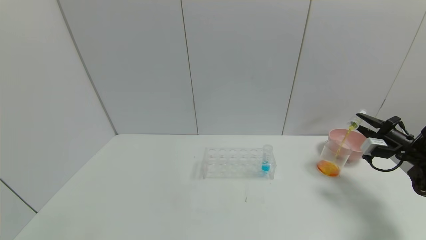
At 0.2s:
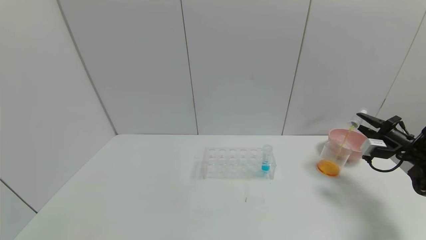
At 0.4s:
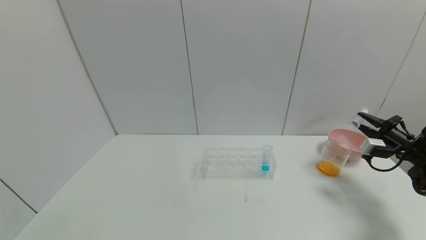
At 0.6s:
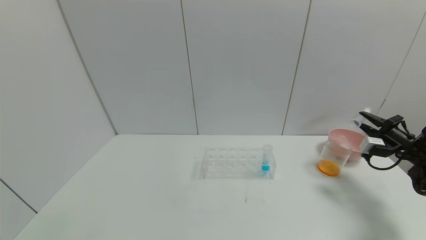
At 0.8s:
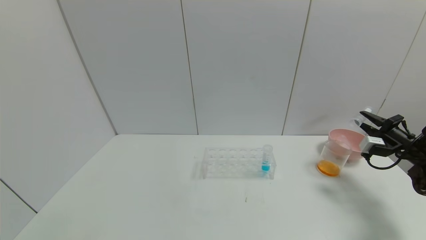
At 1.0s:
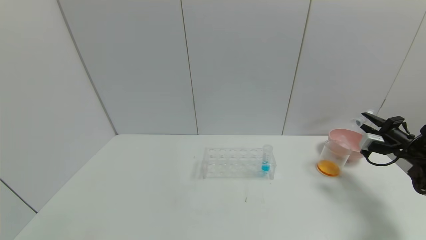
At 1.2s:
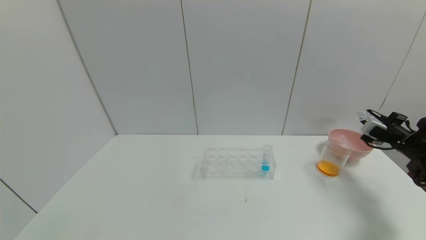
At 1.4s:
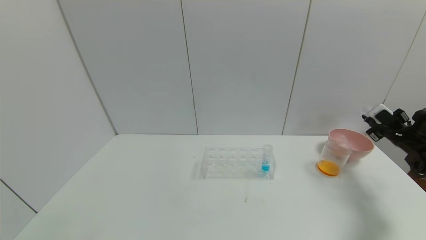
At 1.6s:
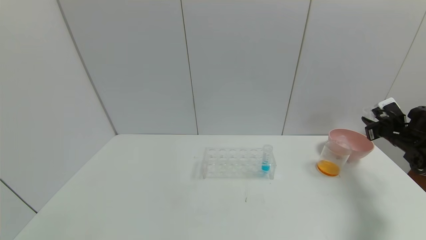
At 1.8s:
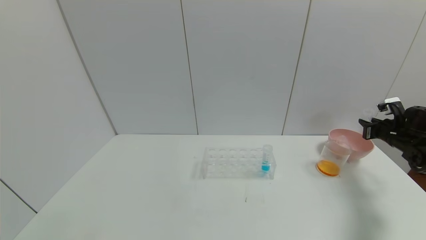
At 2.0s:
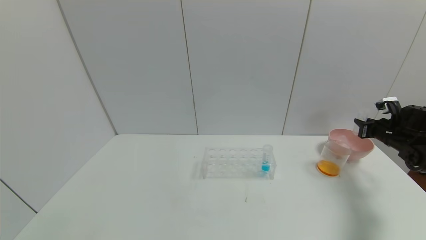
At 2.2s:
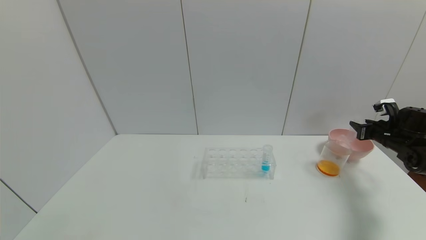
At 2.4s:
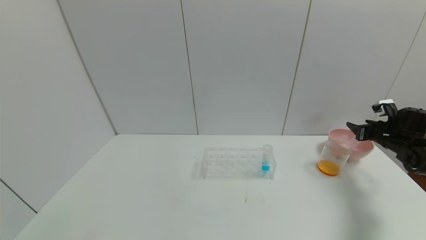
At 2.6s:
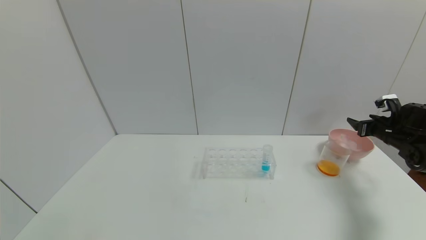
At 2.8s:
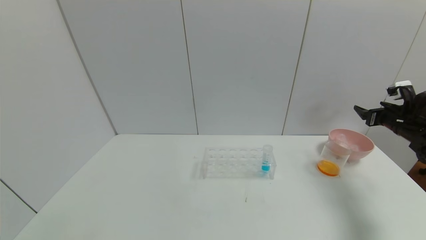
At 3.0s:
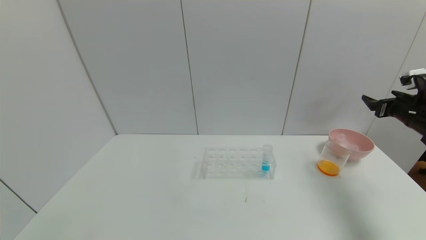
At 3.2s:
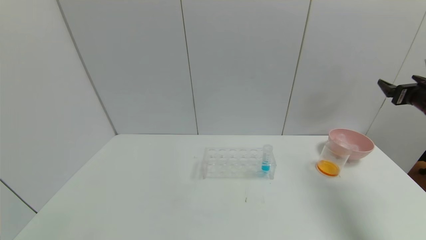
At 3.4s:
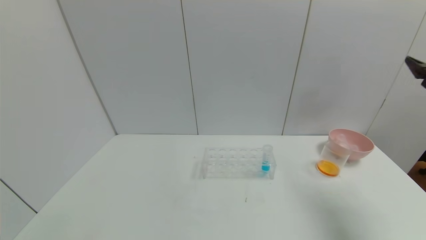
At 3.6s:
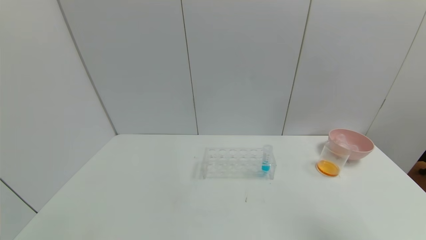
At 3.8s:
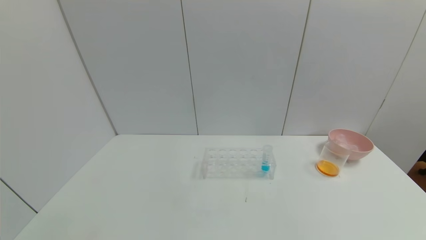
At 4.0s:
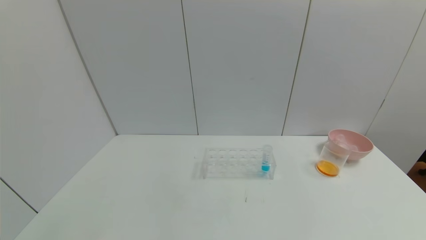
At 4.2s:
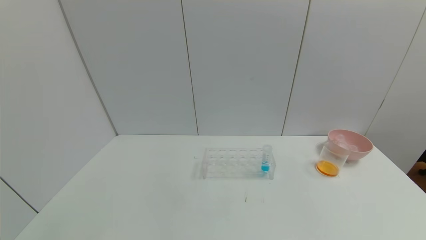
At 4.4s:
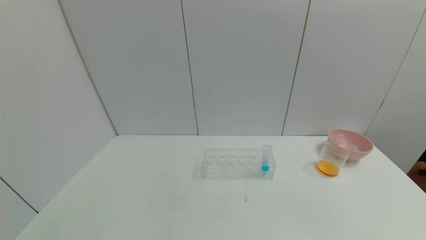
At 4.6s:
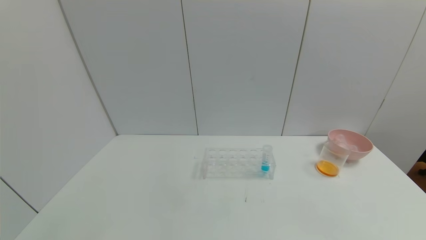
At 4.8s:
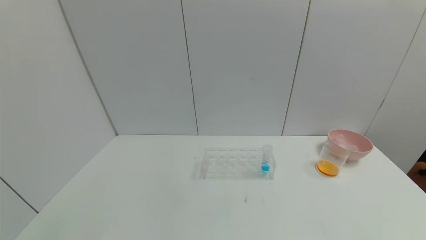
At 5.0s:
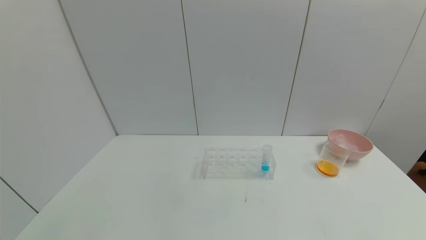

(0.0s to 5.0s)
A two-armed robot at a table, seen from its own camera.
Task of the whole recording: pick up the test tube with yellow pigment and the test tube with red pigment by grippers and pour them into the beaker.
Step, 0.8s - 2.8s: Place the test tube into the bowl with right gripper.
1.6s - 3.4s: The right gripper shifts about 20 cm upward and backward, and opens.
3.4s - 5.0s: The right gripper moves backward and downward, about 40 cm.

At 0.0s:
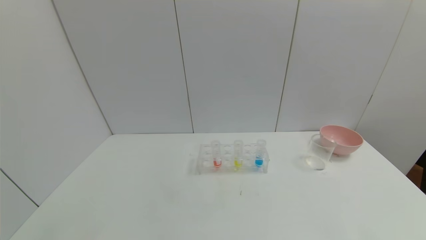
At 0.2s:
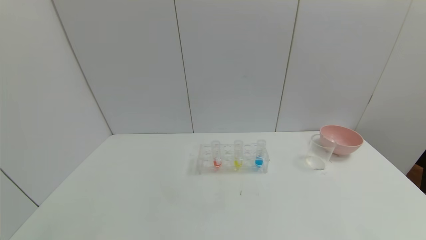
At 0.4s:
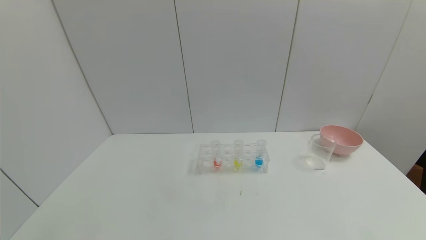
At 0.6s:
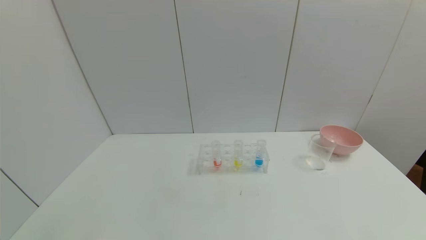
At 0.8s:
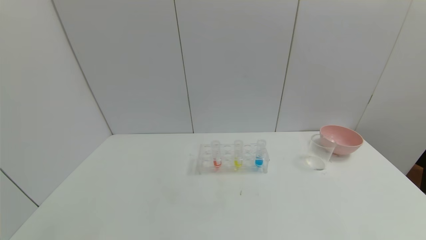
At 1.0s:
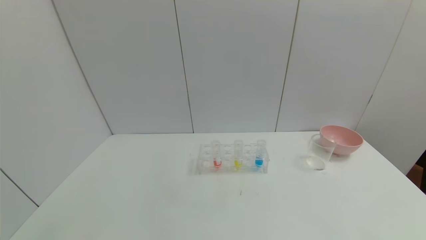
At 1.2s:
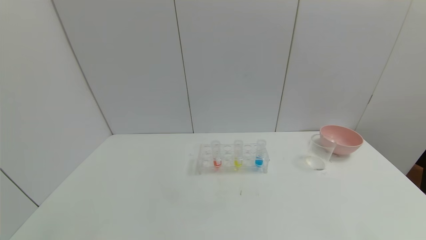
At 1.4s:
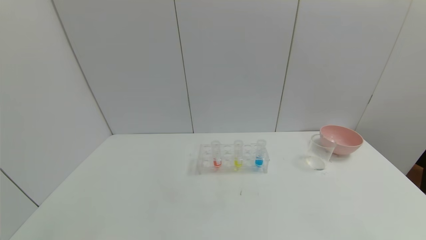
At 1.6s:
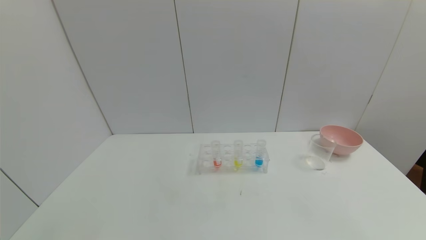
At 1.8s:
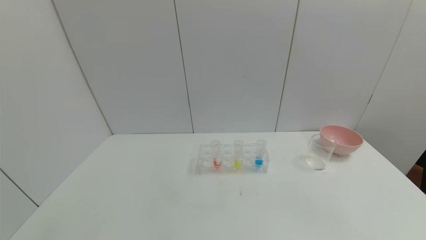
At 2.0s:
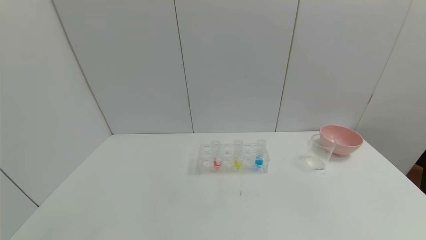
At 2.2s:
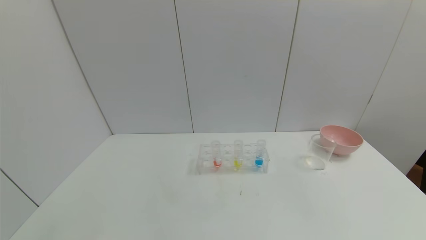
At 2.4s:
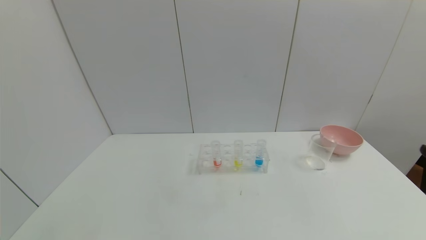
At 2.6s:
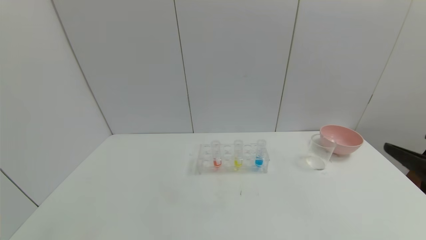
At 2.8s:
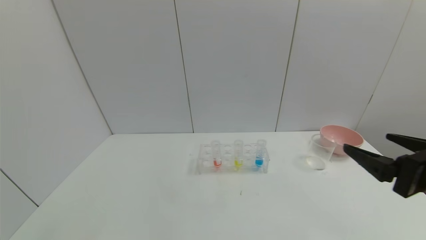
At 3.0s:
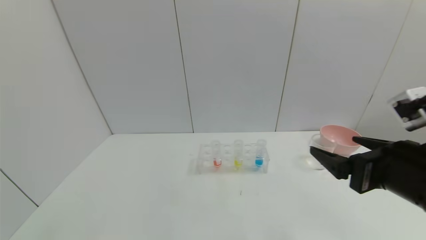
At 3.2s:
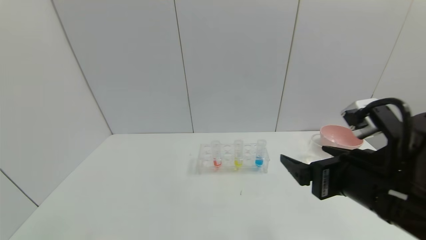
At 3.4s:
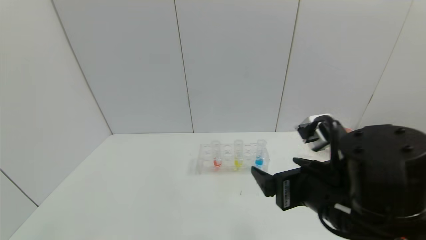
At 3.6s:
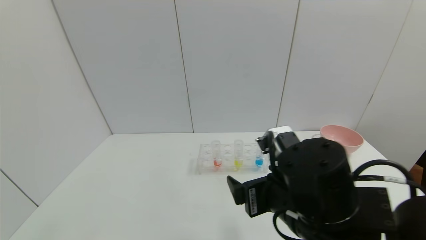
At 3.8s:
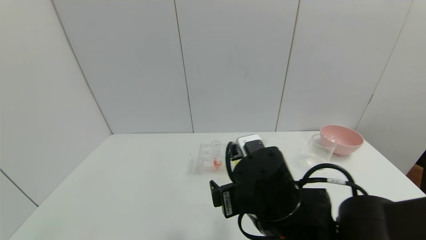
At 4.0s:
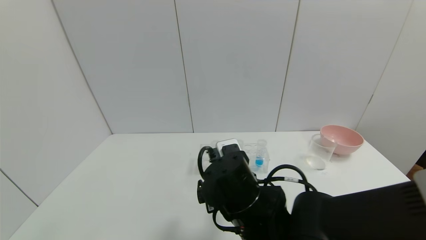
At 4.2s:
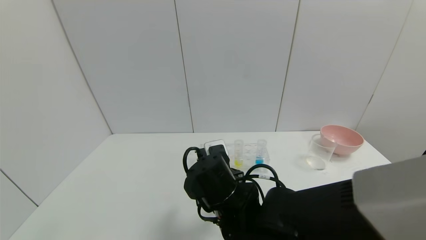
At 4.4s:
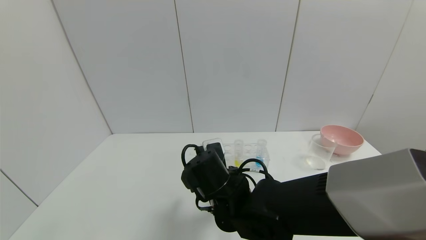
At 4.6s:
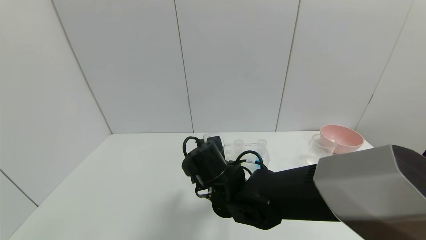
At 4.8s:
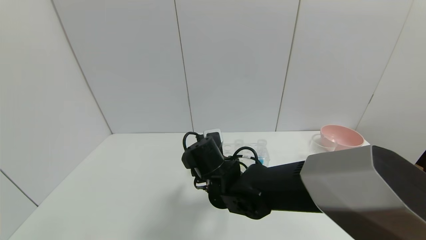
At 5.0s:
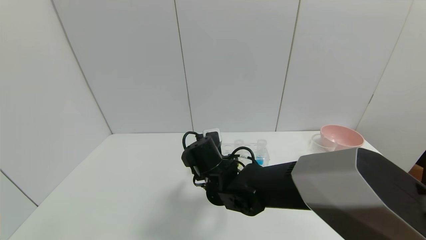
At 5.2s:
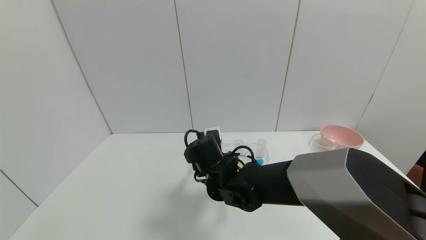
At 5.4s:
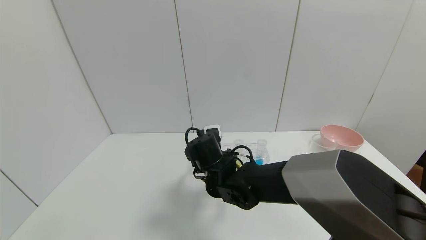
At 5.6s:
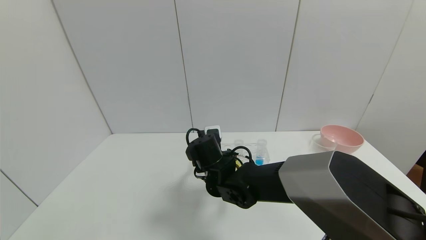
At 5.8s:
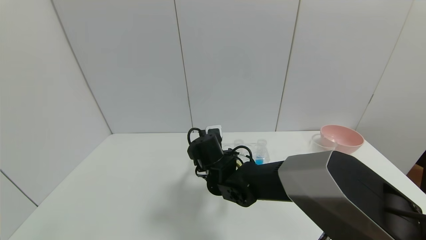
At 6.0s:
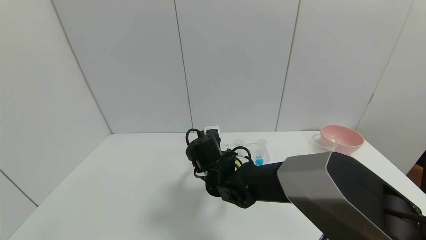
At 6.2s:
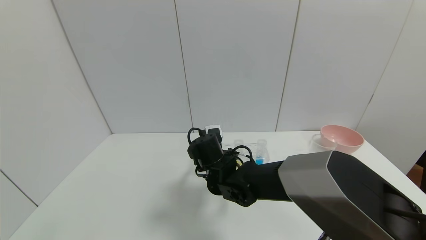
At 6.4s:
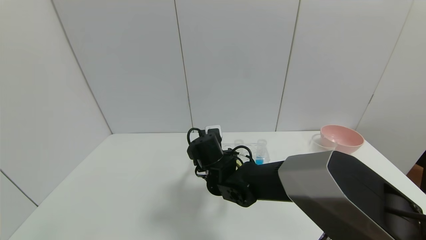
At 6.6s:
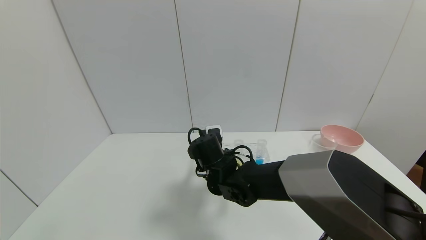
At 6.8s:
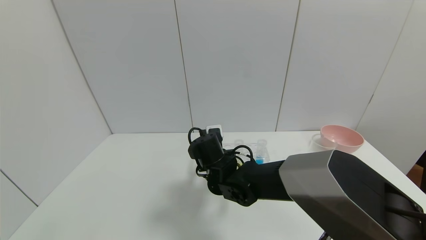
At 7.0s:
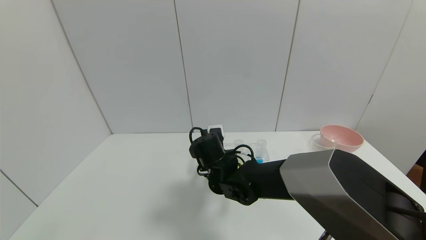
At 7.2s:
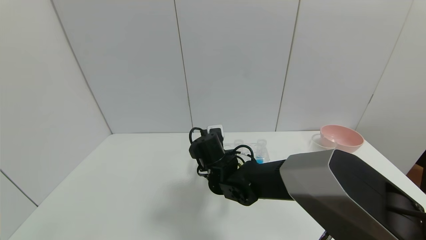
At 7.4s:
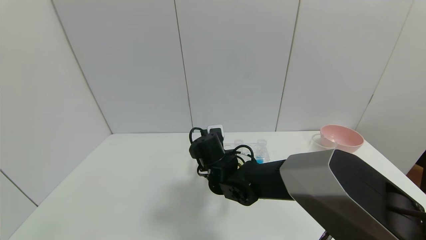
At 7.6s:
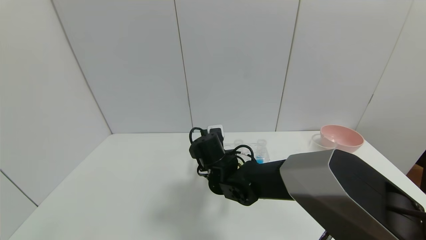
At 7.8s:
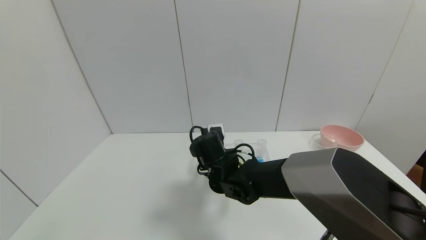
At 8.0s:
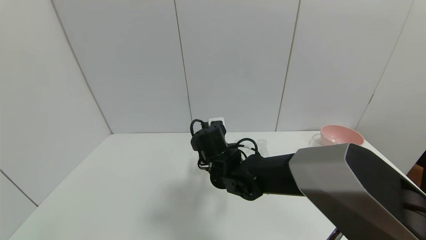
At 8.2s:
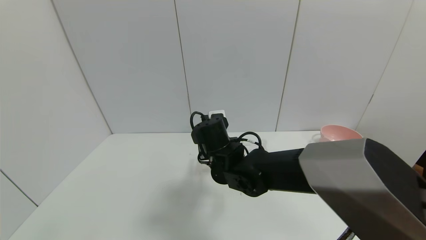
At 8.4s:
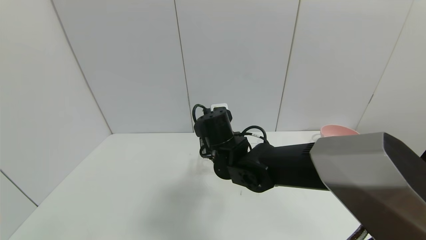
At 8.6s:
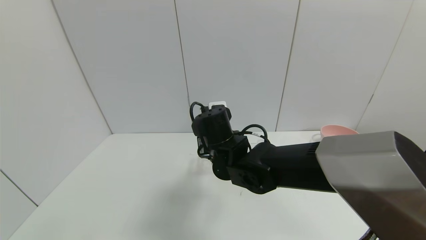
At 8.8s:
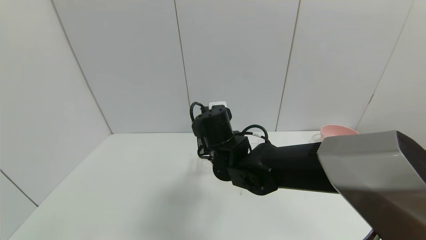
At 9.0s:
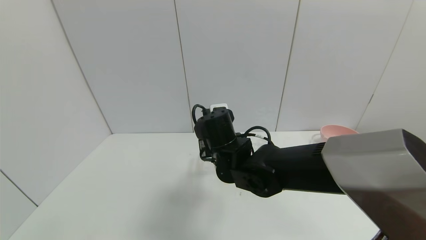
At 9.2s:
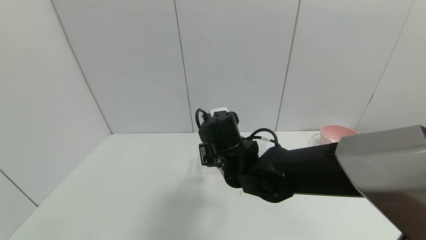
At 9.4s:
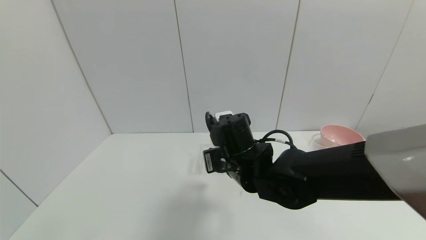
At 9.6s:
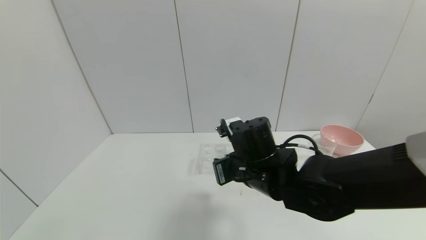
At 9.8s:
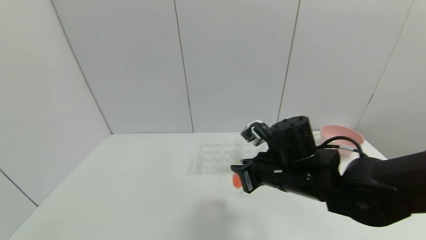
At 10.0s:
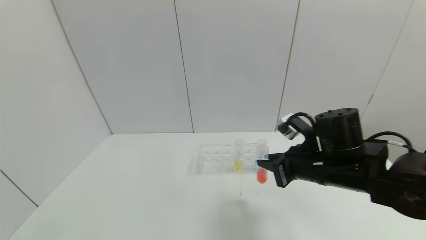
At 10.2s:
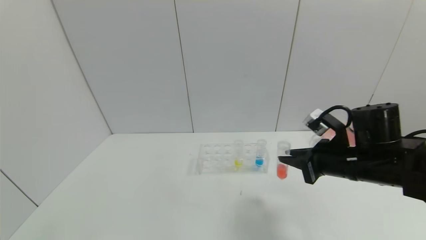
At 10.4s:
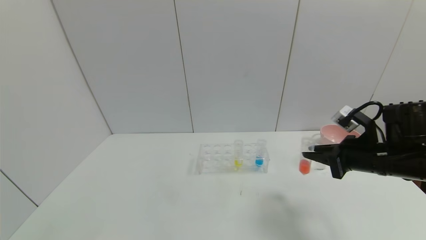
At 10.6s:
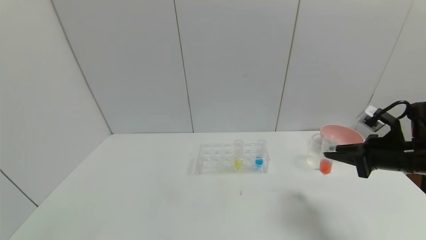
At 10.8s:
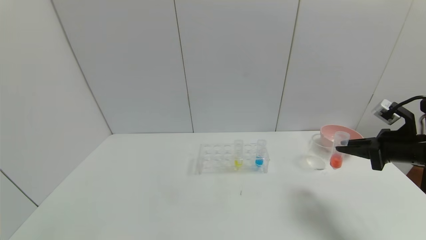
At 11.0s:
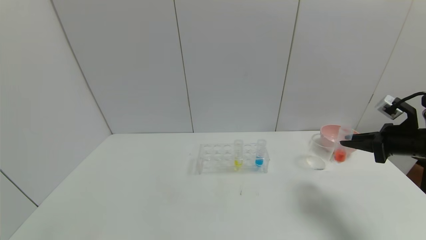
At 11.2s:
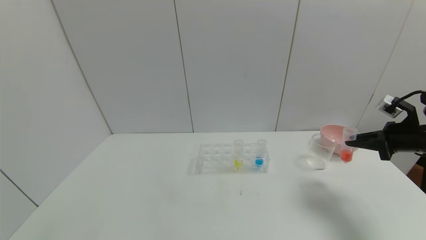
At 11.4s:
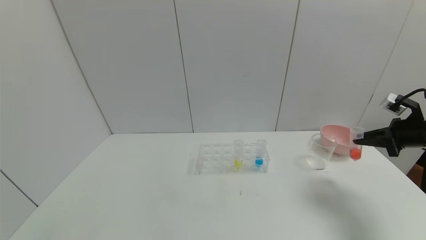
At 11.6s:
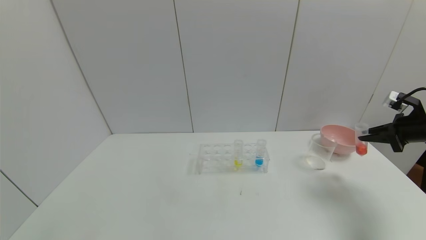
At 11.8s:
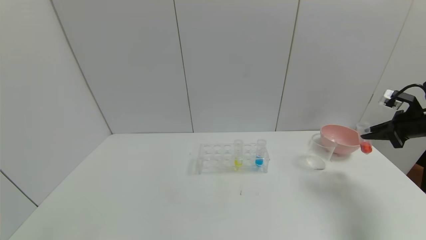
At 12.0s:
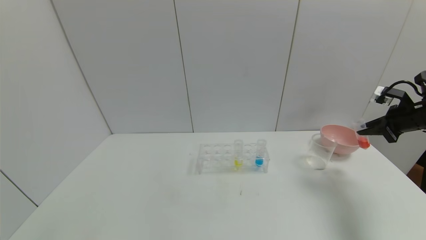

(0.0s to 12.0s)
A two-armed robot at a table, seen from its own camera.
Task of the whole recording: pick up the test tube with yellow pigment and the test tube with red pigment by grippers and pour them into the beaker.
Step, 0.0s - 7.0s: Grasp the red reagent with the right gripper.
1.6s - 3.0s: The right gripper goes about 25 cm forward, to the left and upward.
3.0s - 4.4s: The right gripper moves to the left, downward and forward, about 30 cm.
4.4s - 6.0s: The right gripper shifts approximately 10 cm forward.
6.0s - 7.6s: The right gripper closes.
7.6s - 9.0s: The right gripper goes roughly 5 cm upward.
9.0s - 10.4s: The right gripper moves to the right, approximately 30 cm.
10.4s - 12.0s: The right gripper travels to the right and forward by roughly 20 cm.
